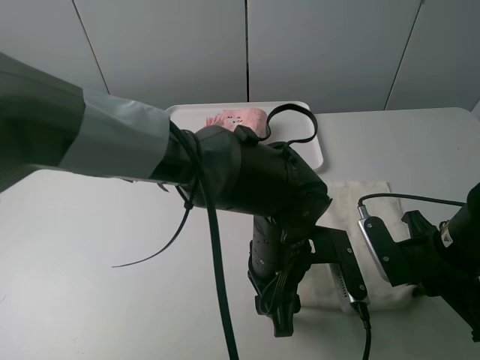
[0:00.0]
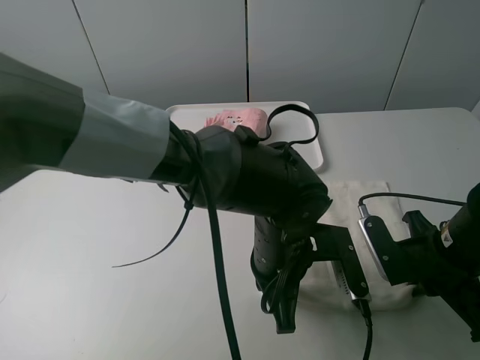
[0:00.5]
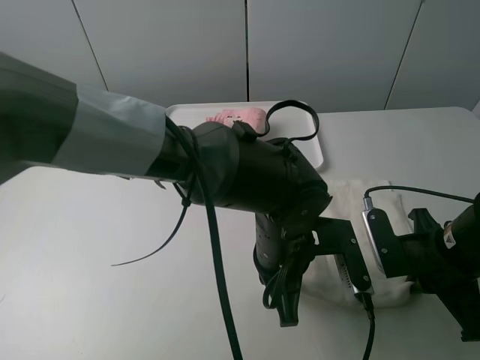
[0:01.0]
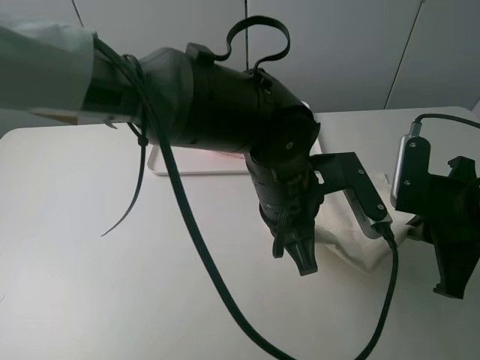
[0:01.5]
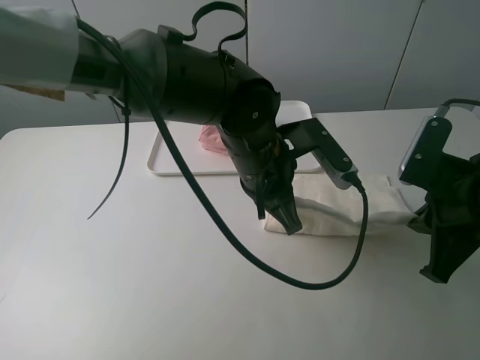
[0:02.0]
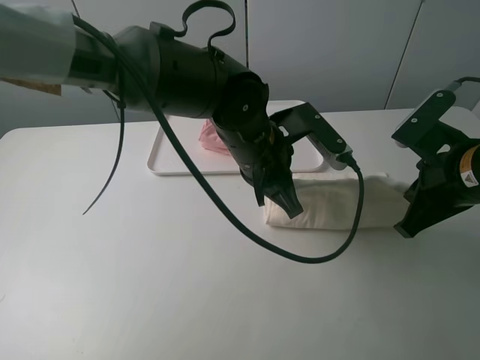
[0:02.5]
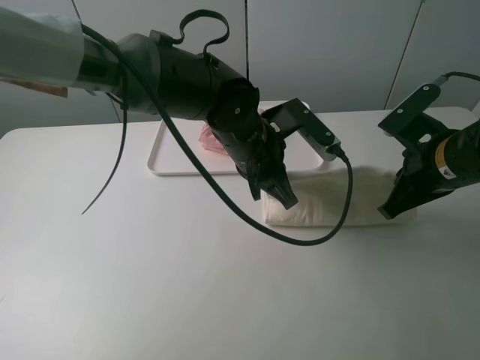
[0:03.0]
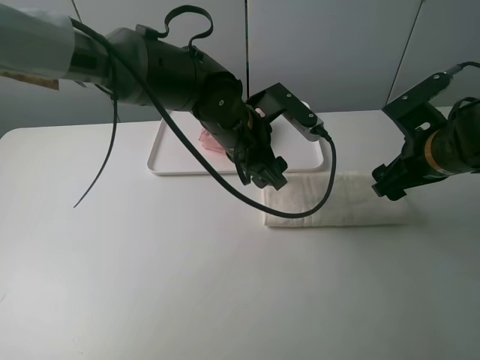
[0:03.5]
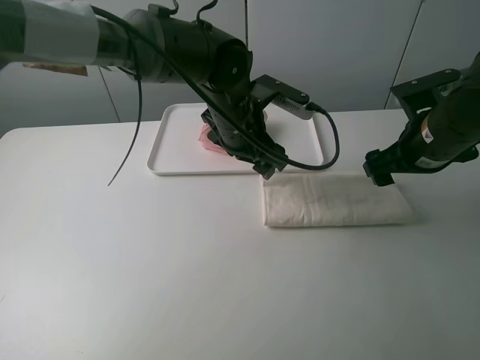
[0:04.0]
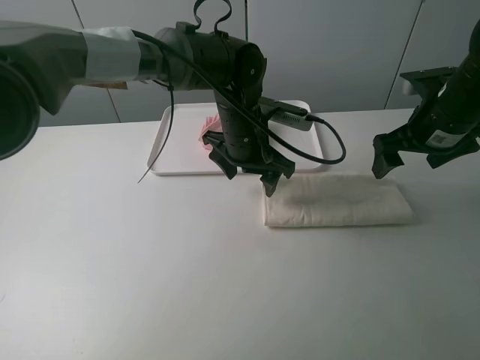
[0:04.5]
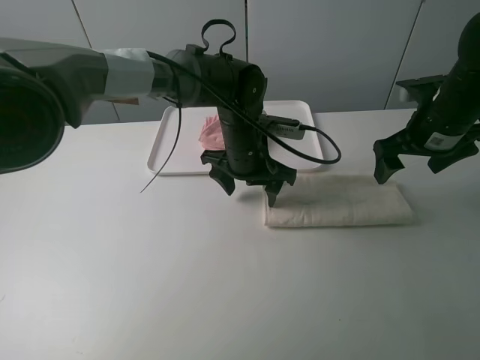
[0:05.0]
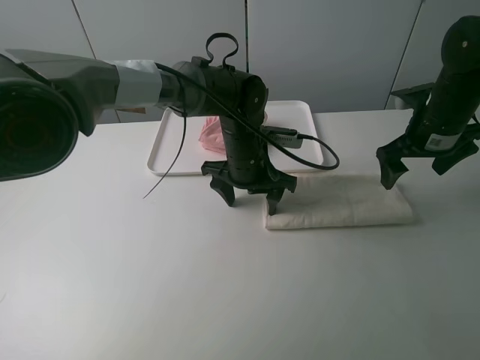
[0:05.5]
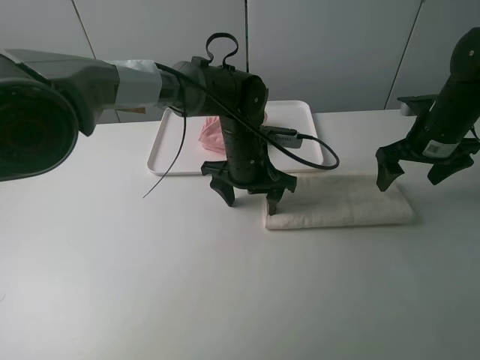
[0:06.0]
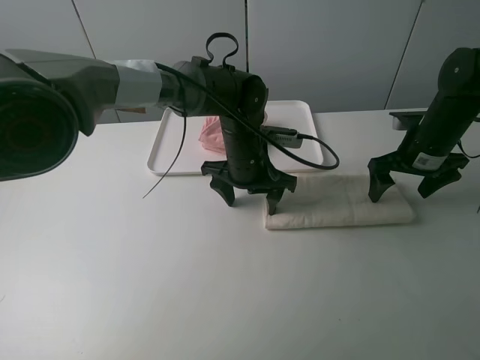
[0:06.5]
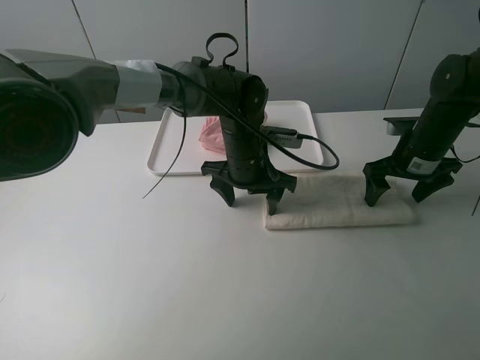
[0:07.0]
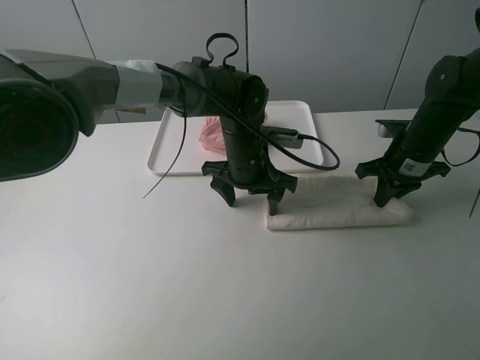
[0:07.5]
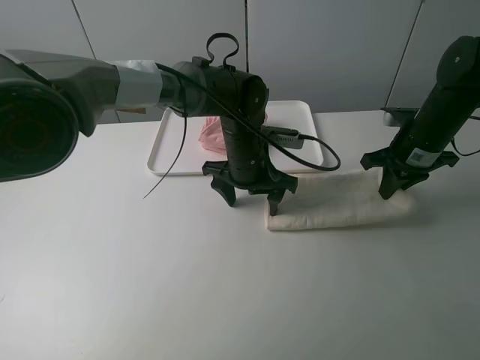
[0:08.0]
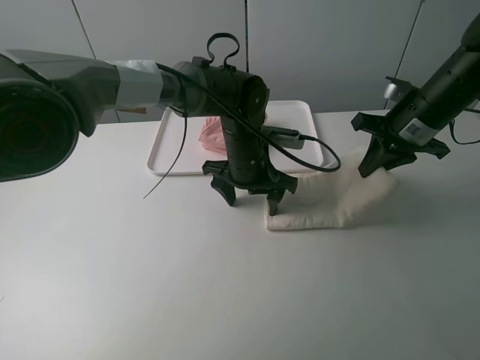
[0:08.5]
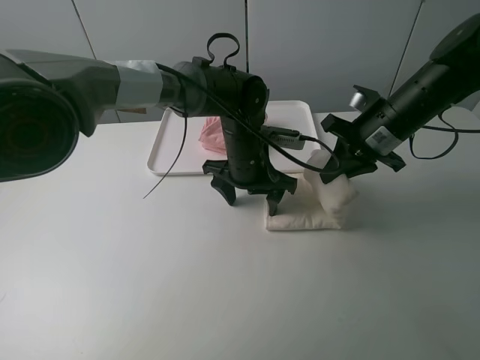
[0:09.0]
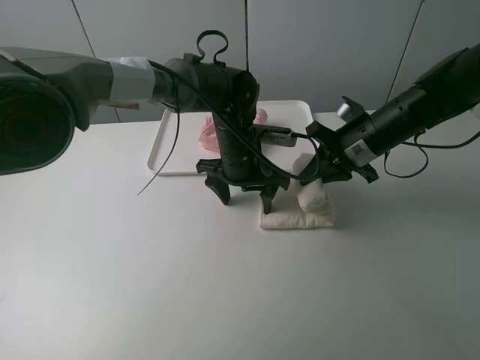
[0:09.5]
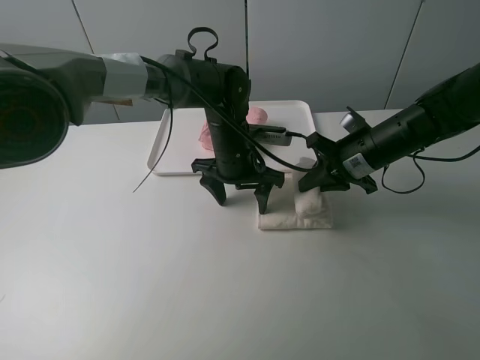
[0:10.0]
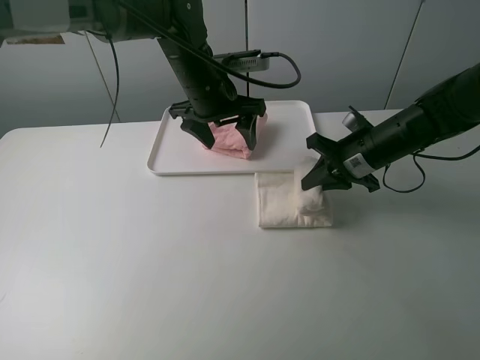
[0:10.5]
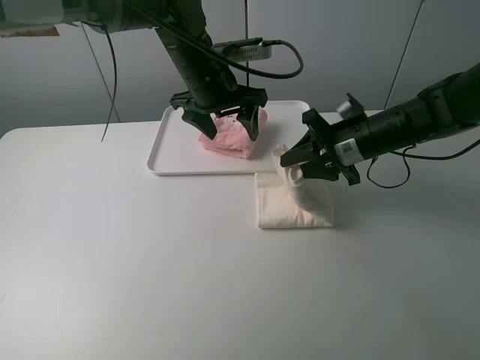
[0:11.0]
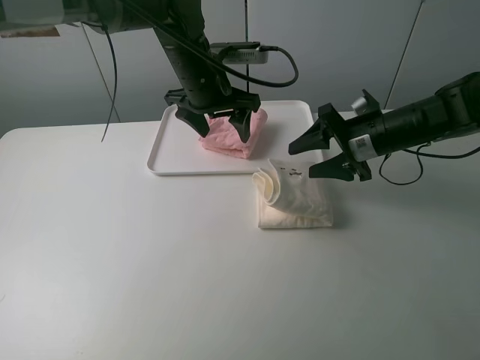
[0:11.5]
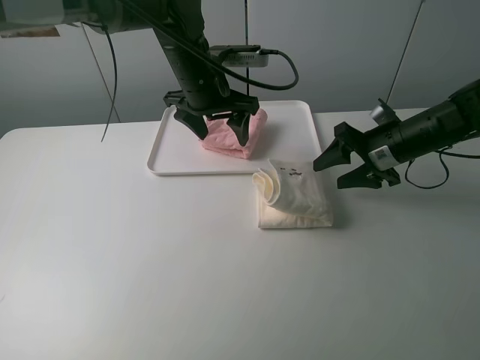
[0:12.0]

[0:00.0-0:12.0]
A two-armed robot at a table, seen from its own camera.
Task of the whole recording: fold one of the towels by two grippers and place it on the tray,then fold another towel by two grippers and place it on the folded towel.
Step, 0:00.5 to 0:03.5: Fold the white towel upwards with the left gripper.
Step, 0:04.0 to 0:05.0: Press the white towel with the left gripper.
Step, 0:05.5 to 0:07.0: Grasp the white towel with the right gripper.
Step, 0:07.5 to 0:11.0: Fold the white towel from right to left with right gripper.
0:00.0 to 0:02.0: The right gripper goes approximately 10 cm upward, while the left gripper goes some 10 cm forward and upward, and closes.
0:02.0 to 0:04.0: Both grippers move forward, some 10 cm. The right gripper opens up; the left gripper opens up.
0:04.0 to 0:06.0: The left gripper travels downward by approximately 5 cm; the right gripper travels forward by about 5 cm.
0:06.0 to 0:08.0: The right gripper closes its fingers.
0:08.0 to 0:10.0: The right gripper goes roughly 10 cm to the left.
0:10.0 to 0:12.0: The right gripper opens. The left gripper heads upward, covering roughly 10 cm.

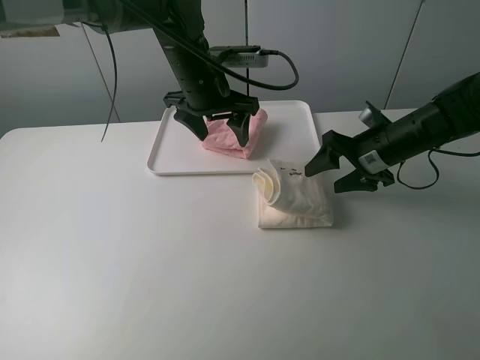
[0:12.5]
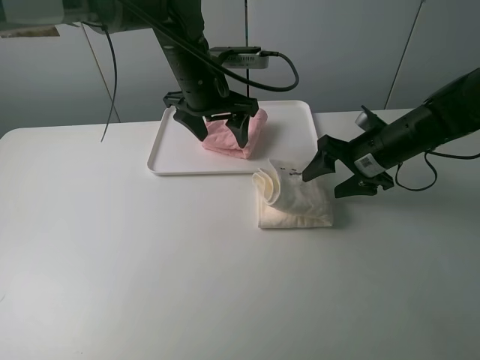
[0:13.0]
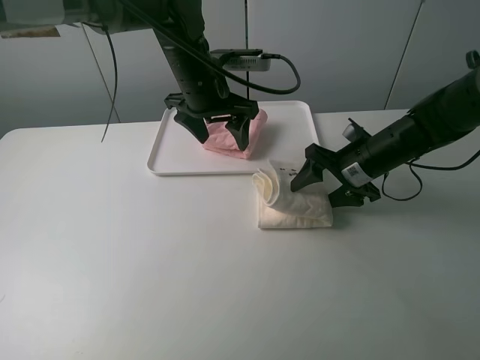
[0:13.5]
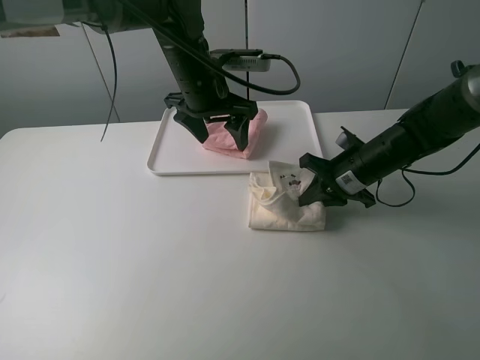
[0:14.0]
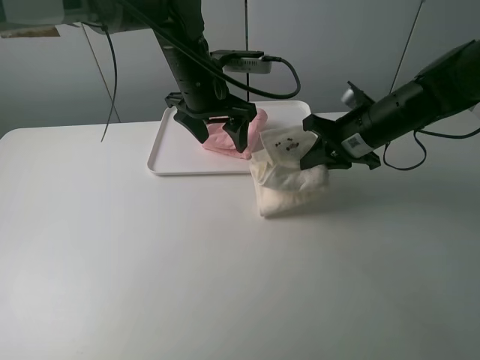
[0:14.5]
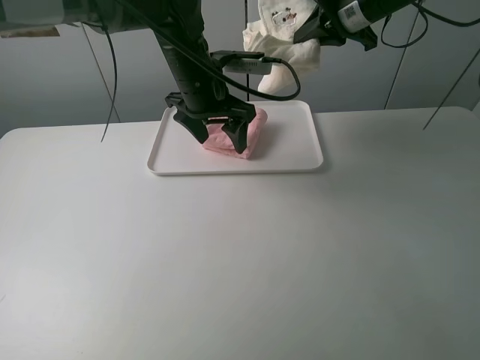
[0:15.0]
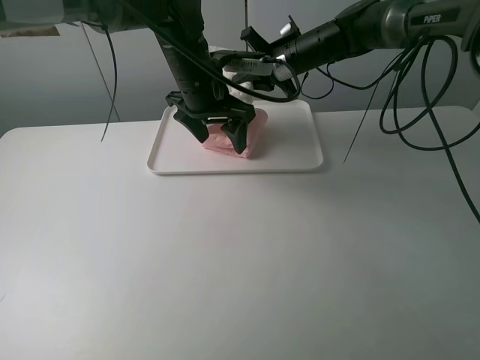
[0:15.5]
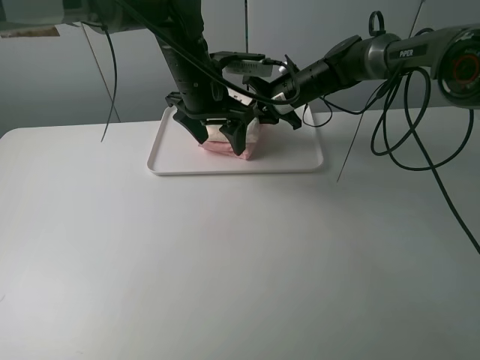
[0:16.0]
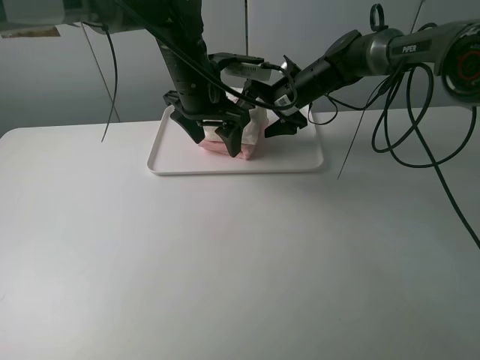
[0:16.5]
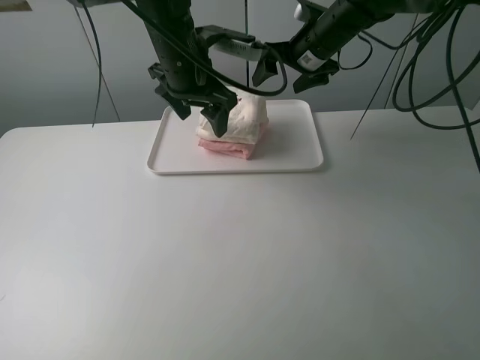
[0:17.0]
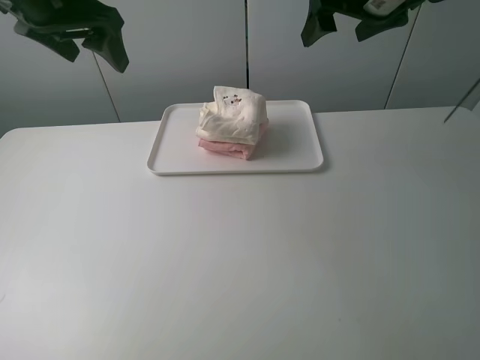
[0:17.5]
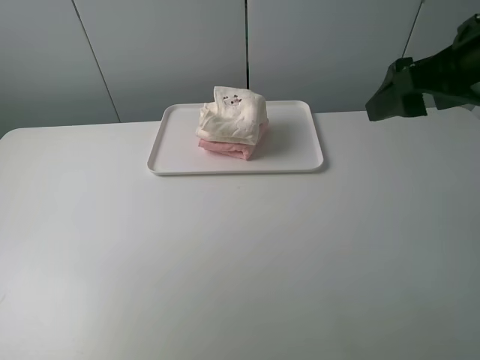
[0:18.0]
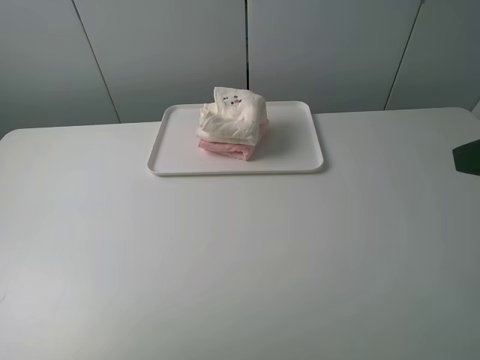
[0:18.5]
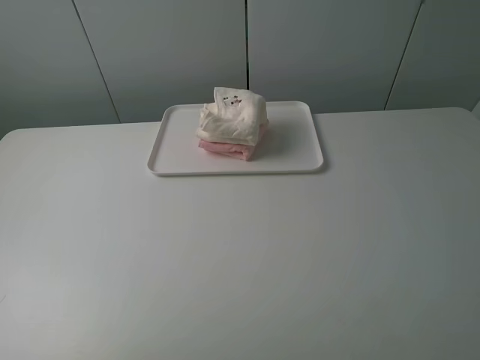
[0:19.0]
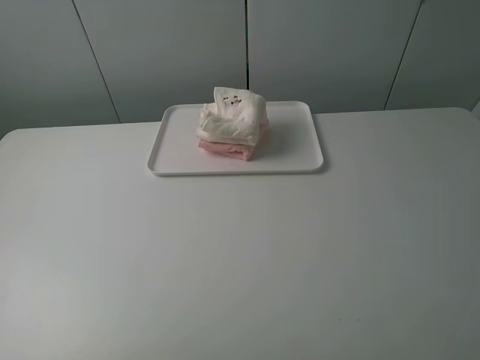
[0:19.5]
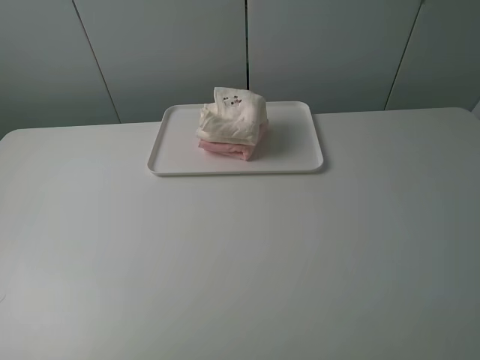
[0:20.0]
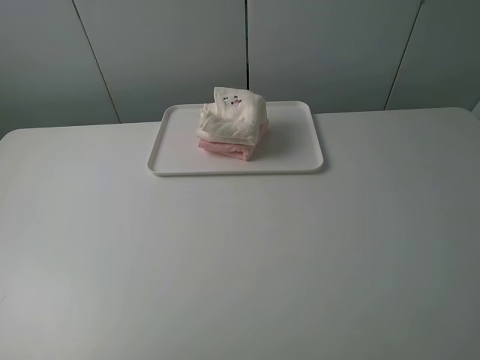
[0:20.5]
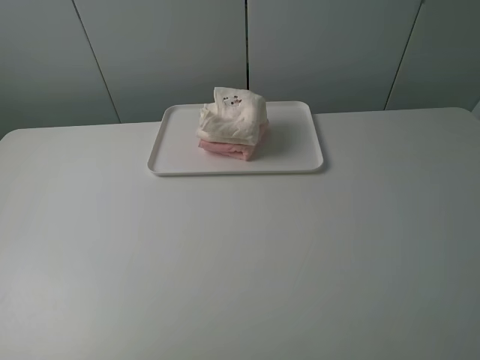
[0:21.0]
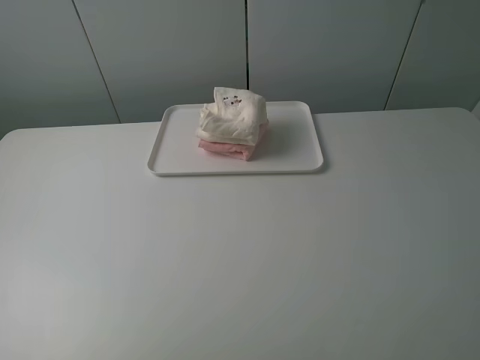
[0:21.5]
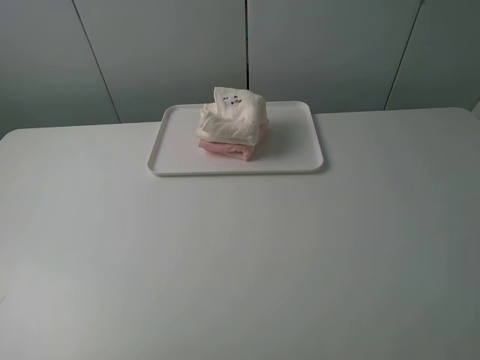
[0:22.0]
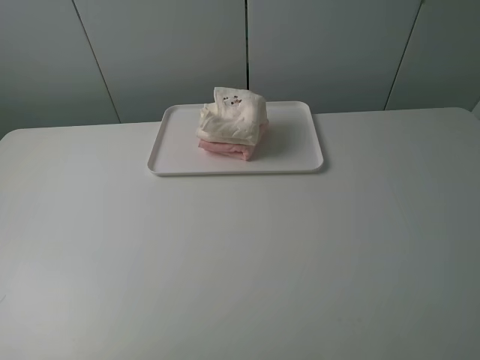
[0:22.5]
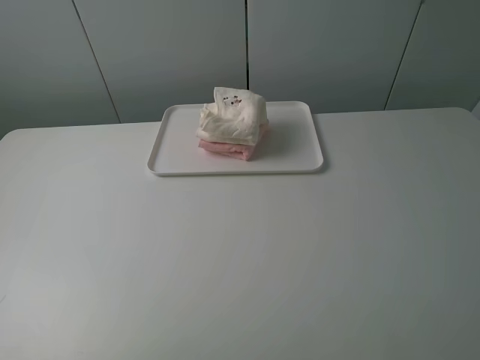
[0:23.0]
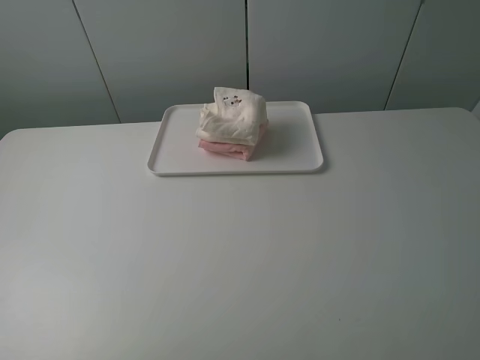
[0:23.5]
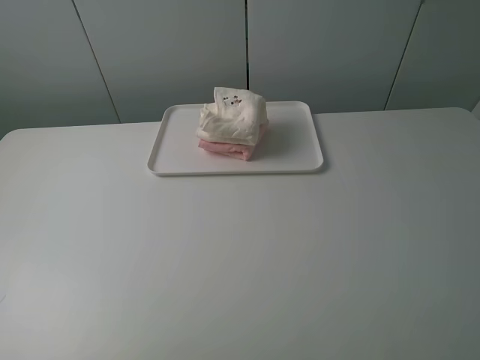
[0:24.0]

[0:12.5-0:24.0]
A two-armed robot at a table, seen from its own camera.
Task of the whole recording: fold one of the towels by two grippers and place it on the tray,then fold another towel by two grippers and place it on the folded towel.
Step, 0:12.5 to 0:14.0: Grasp the white towel with the right gripper.
Step, 0:14.5 to 0:16.0: Place the white towel on the pink towel with the right gripper.
0:12.5 to 0:14.5: The right gripper changes place by roughly 5 cm, and closes up.
0:14.5 to 0:16.5: The right gripper heads forward and to the left, covering approximately 15 cm, reaches approximately 15 cm upward, then returns, and opens up.
0:16.5 to 0:18.5: The right gripper shifts roughly 50 cm backward, upward and to the right. The left gripper heads backward and to the left, covering some 40 cm.
0:18.5 to 0:20.0: The right gripper moves backward, some 10 cm. The left gripper goes about 5 cm backward.
